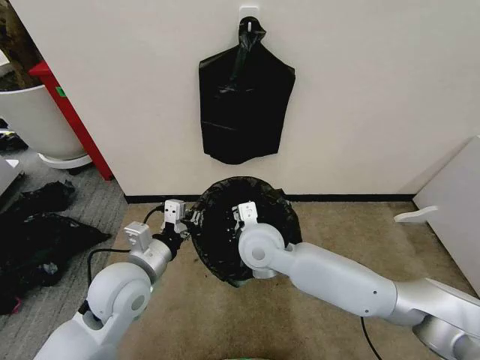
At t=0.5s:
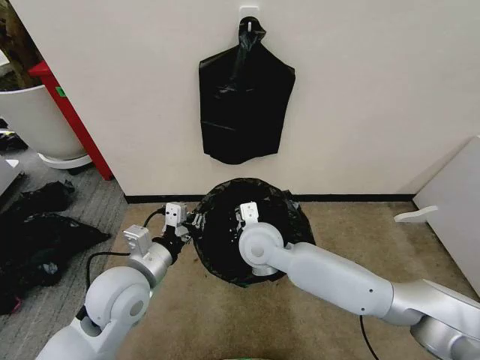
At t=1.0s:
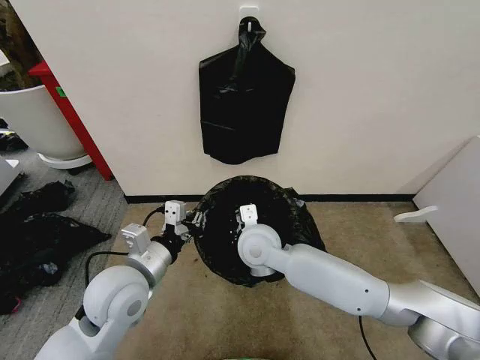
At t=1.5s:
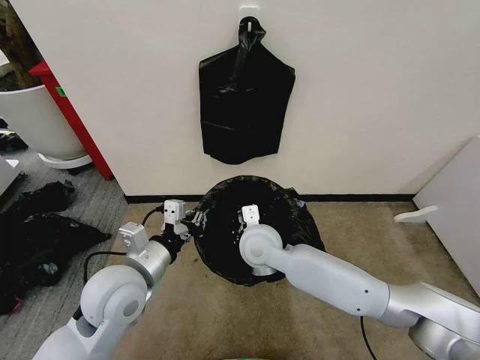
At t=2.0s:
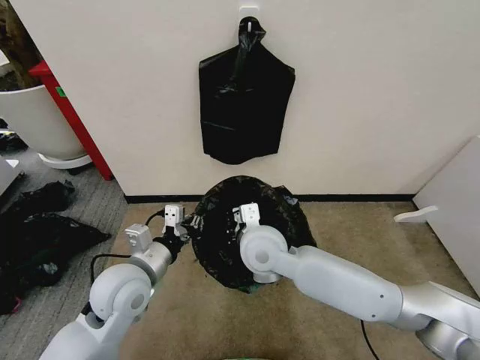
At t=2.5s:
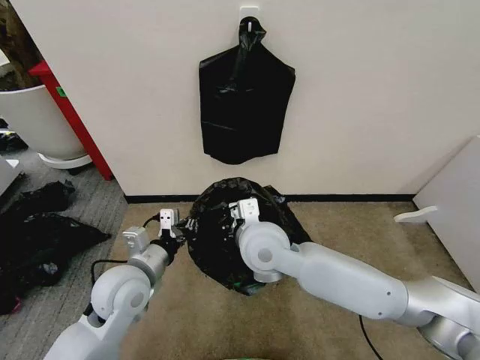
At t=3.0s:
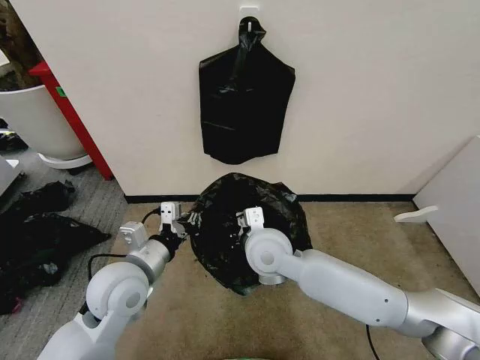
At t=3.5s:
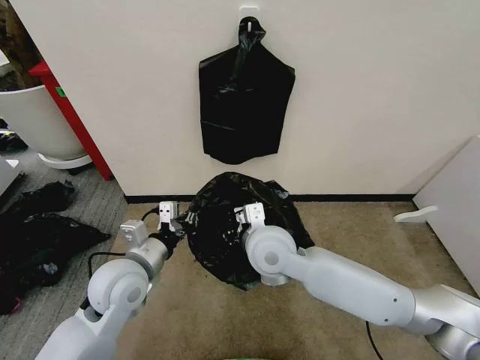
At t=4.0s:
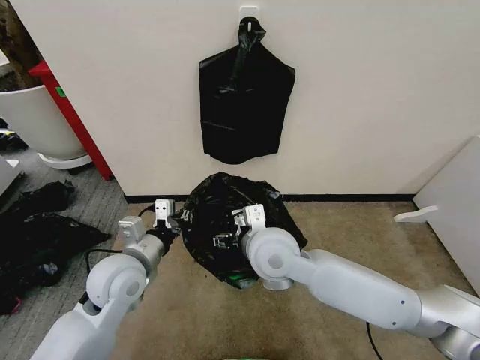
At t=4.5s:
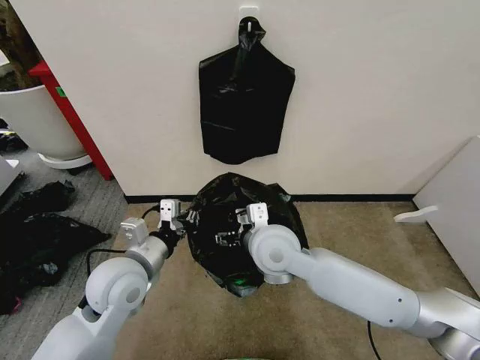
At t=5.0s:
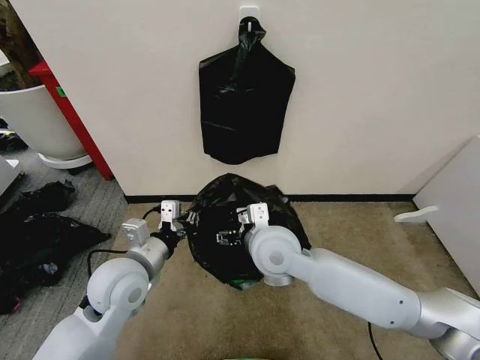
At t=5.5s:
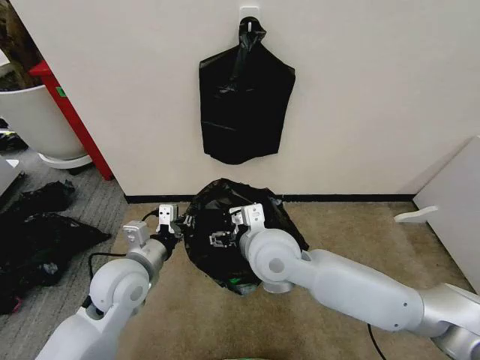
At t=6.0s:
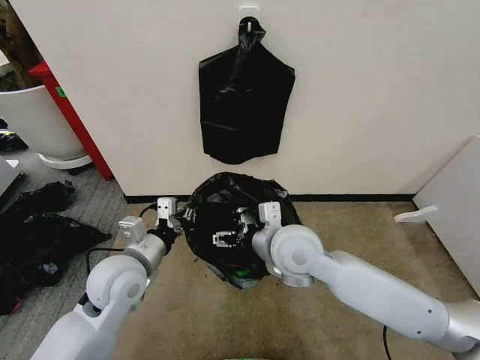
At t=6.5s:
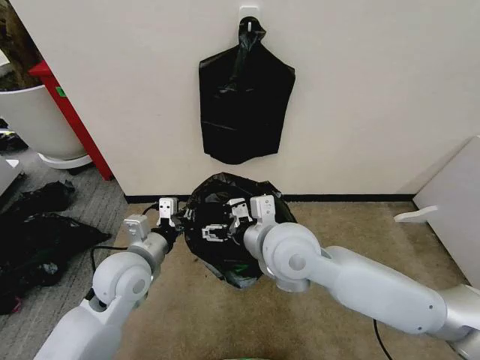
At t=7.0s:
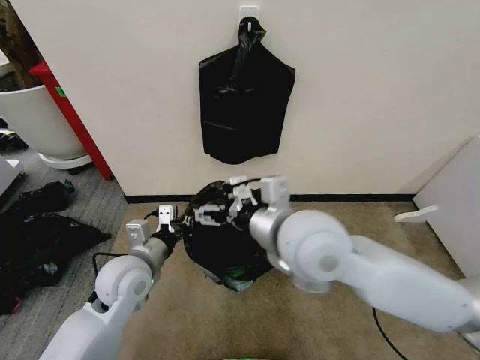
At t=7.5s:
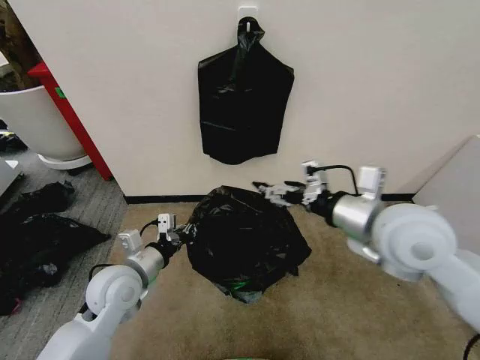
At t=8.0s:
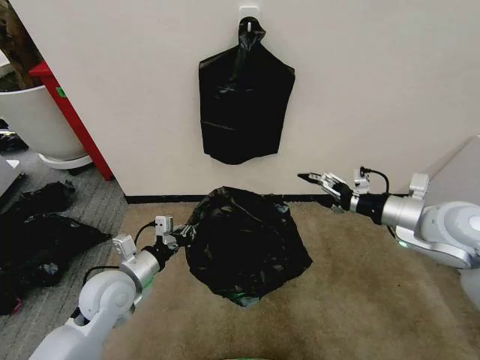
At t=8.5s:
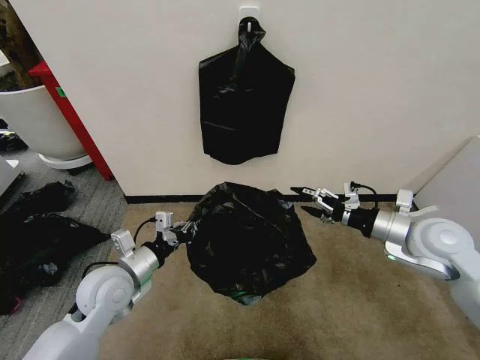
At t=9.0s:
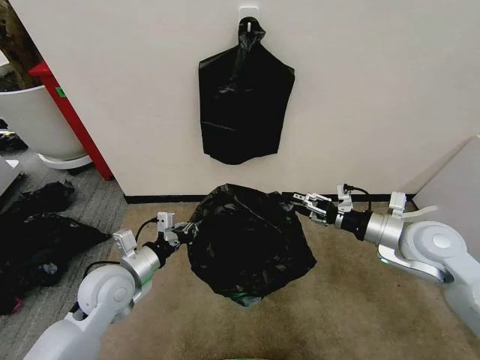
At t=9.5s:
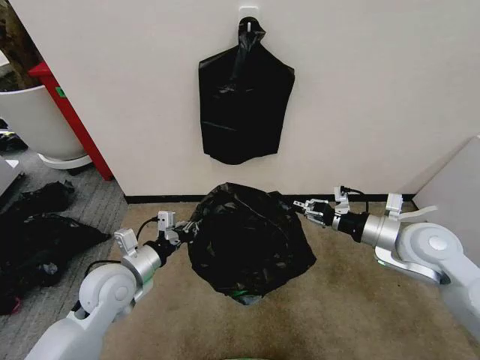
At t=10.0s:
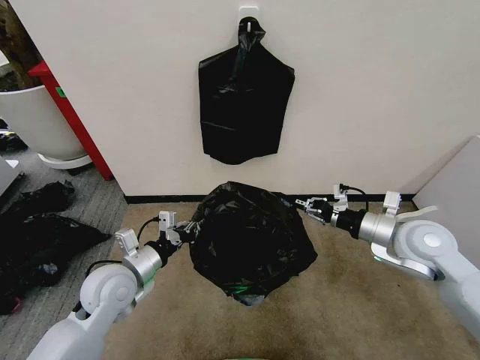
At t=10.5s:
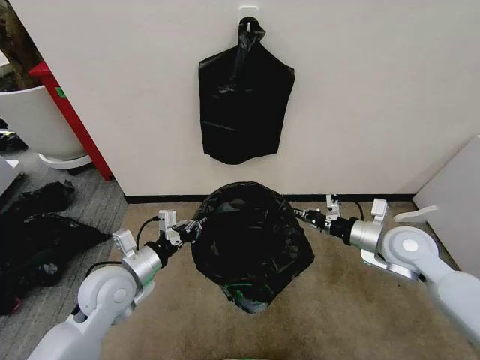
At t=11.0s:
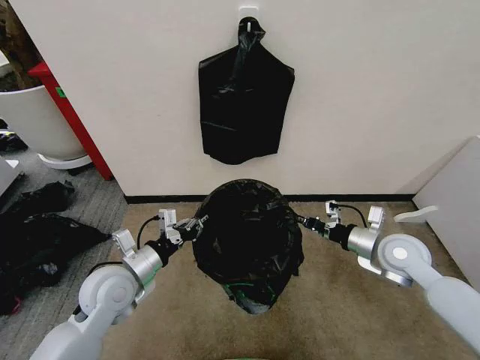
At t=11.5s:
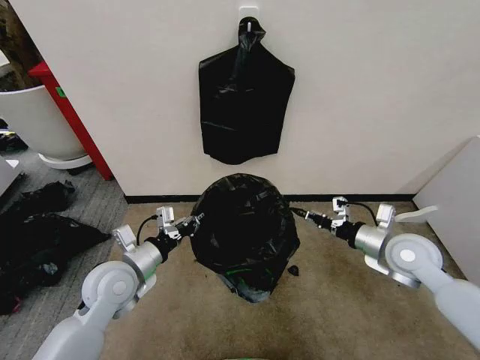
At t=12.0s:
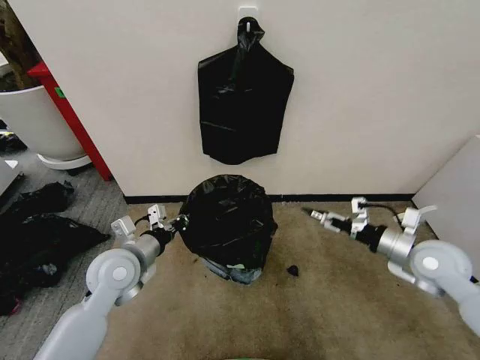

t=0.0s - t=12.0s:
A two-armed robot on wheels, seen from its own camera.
Task of the whole recording: Place the garbage bag over the trash bin.
t=0.0s - t=2.0s: The grippers stay close to where they were, moving slightly.
t=2.0s - t=4.0s: The right gripper opens.
t=4.0s - t=6.0s: There are only small adjustments of the grippers.
t=6.0s - t=8.0s: The right gripper shifts some 25 cm to the right. Meanwhile the left gripper heads downward, covering about 5 cm.
t=8.0s - t=10.0s: The right gripper travels downward by some 5 cm, and closes up.
t=10.0s - t=12.0s: The right gripper moves to the right, roughly 5 cm, and opens.

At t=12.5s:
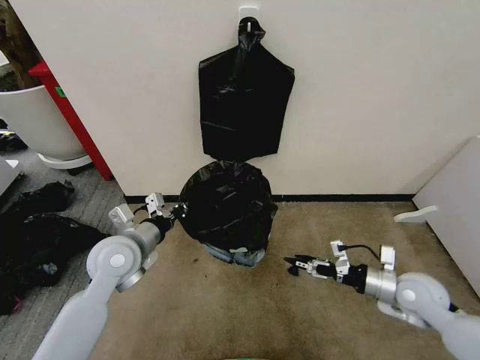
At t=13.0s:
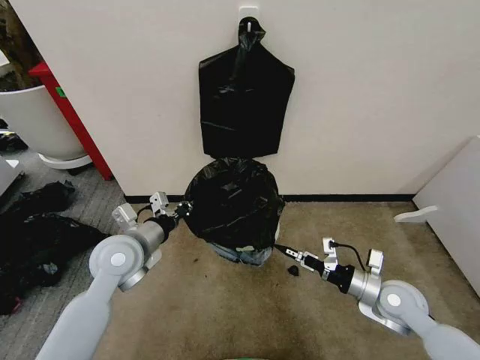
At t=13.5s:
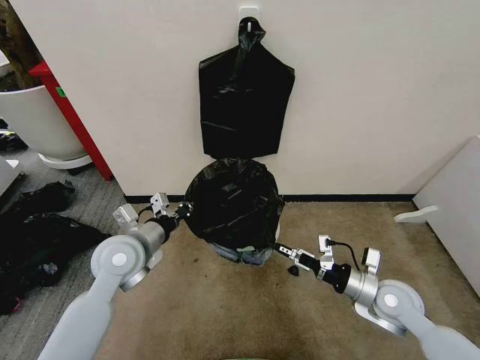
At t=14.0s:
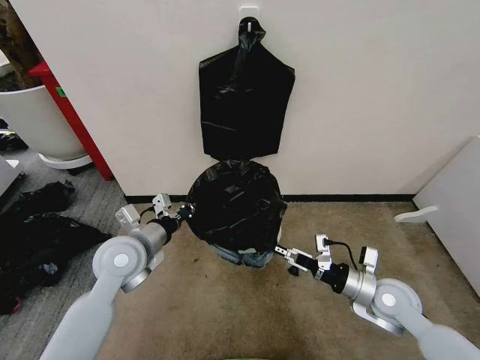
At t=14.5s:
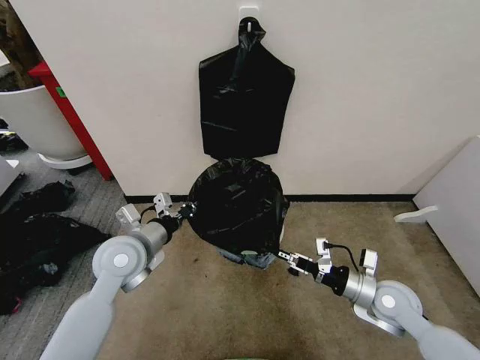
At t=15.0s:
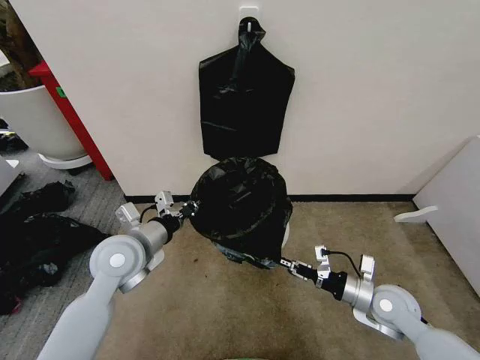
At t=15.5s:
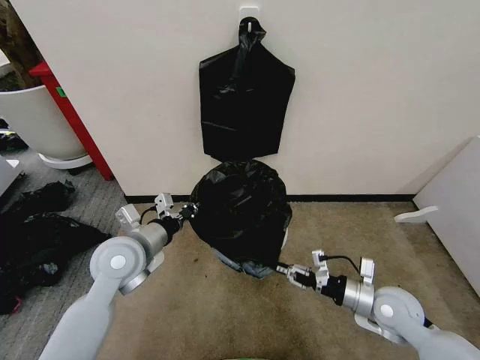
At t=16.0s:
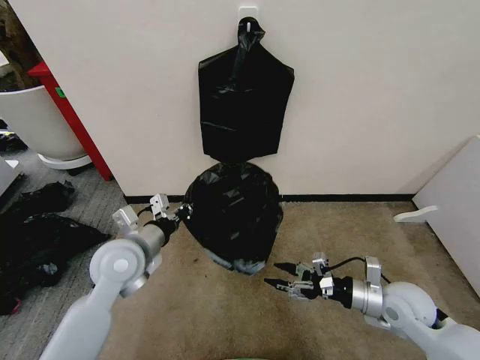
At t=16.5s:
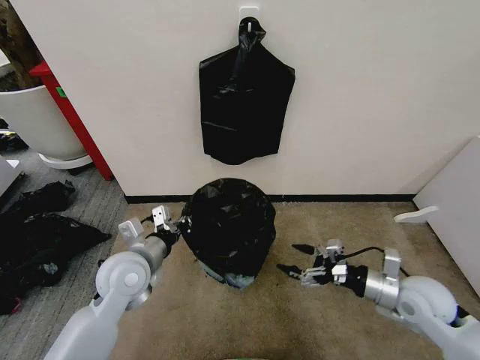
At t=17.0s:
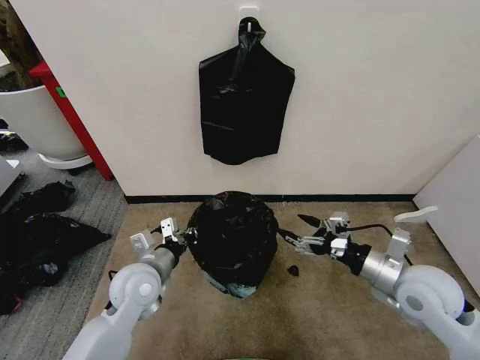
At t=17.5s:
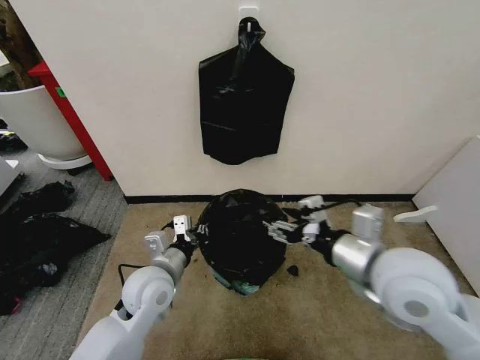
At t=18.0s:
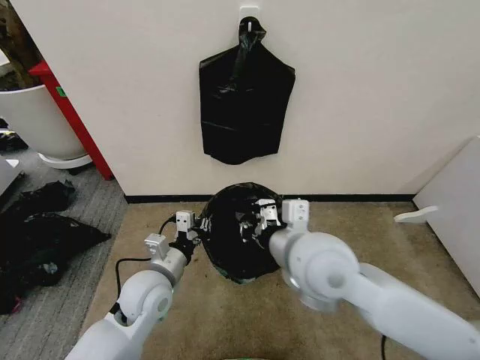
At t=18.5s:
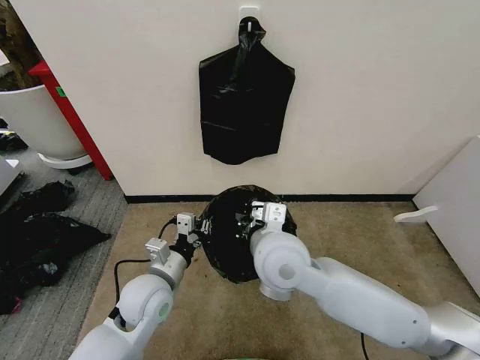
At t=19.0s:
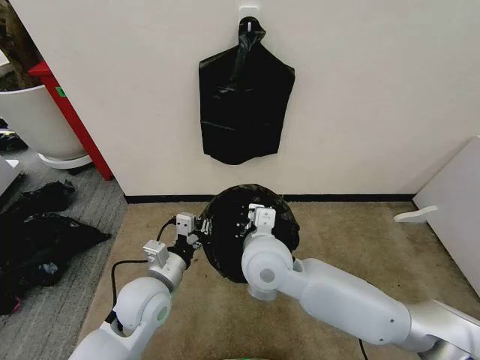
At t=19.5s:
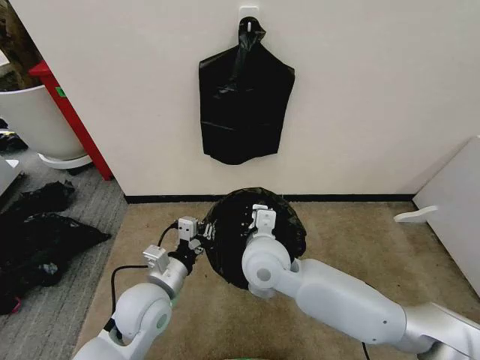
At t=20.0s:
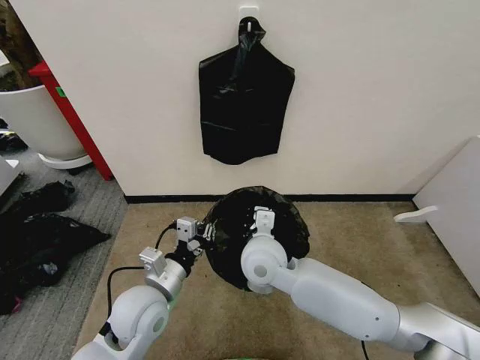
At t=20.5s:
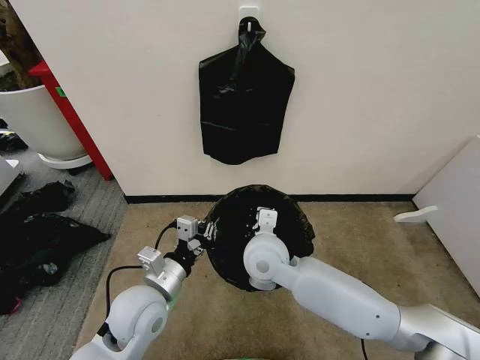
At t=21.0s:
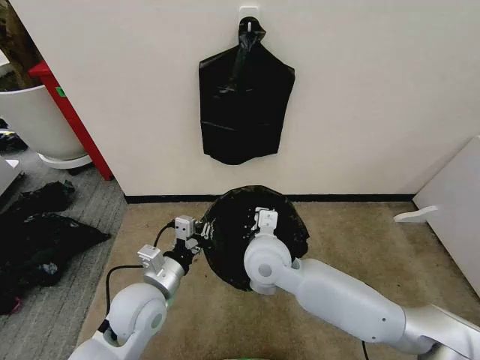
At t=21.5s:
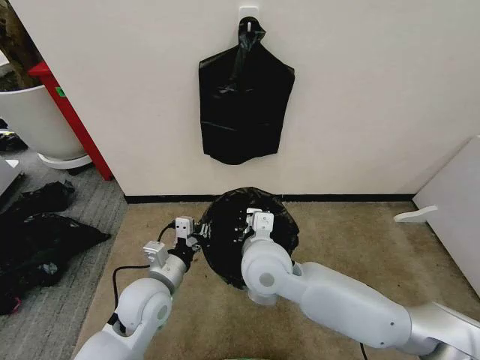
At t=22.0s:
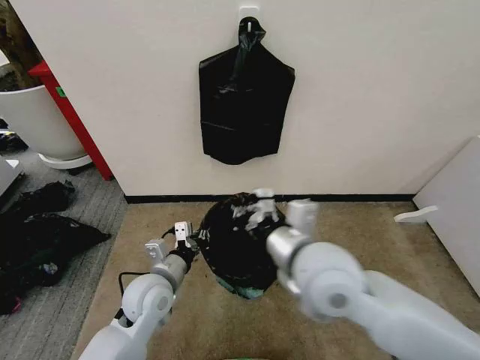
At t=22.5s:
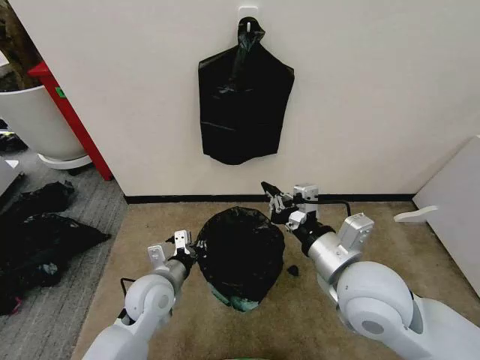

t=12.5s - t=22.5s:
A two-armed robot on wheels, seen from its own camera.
Task of the whole recording: Place the garbage bag over the trash bin.
t=12.5s - t=14.5s: The right gripper moves to the left, about 5 cm, and closes.
t=14.5s - t=16.5s: The right gripper moves roughly 5 cm, and opens its fingers.
t=16.5s - t=18.5s: The left gripper moves approximately 5 cm, while the right gripper shifts roughly 30 cm to the left, and closes its fingers.
t=18.5s - t=20.5s: The right gripper heads downward, covering roughly 5 cm.
t=20.5s - t=22.5s: The right gripper shifts approximately 20 cm to the right, backward and upward. Meanwhile the left gripper moves roughly 5 cm.

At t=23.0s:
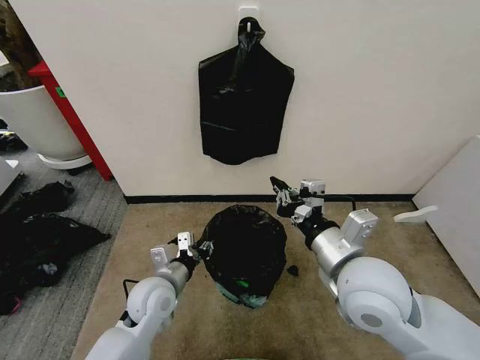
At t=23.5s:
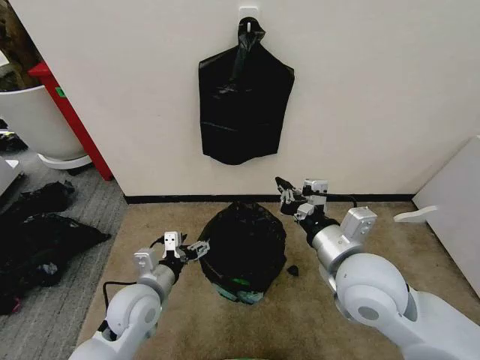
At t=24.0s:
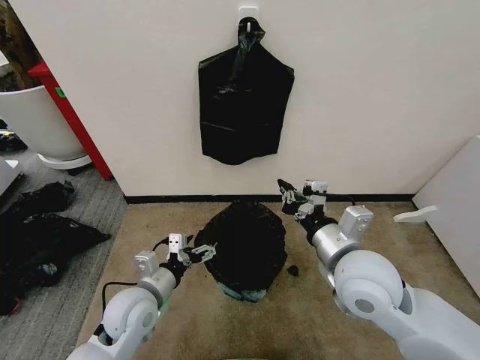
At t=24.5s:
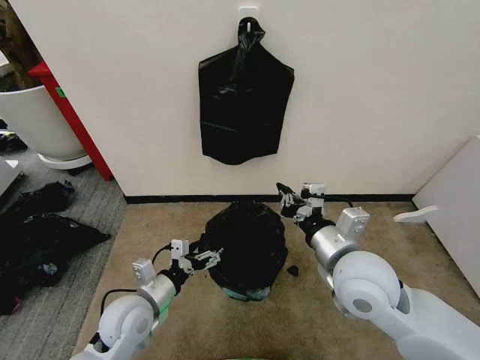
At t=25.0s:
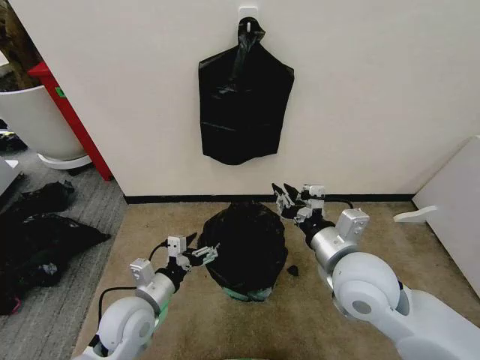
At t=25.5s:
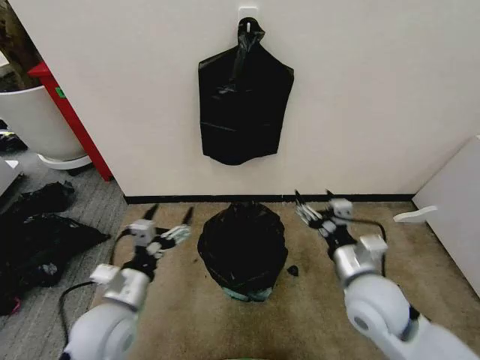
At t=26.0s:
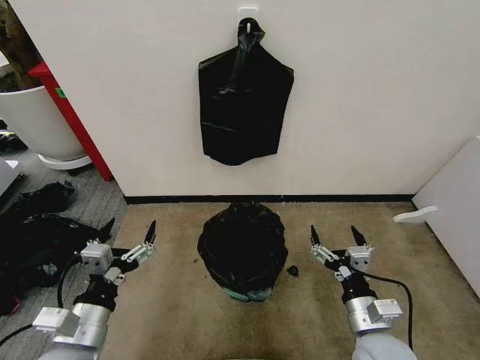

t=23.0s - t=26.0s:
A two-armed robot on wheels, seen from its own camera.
Task of the whole recording: Place the garbage bag over the trash bin.
t=23.0s - t=24.5s: The left gripper shifts by roughly 5 cm, and opens its fingers.
t=24.5s - t=26.0s: The right gripper heads downward and backward, covering some 15 cm, and opens up. Meanwhile the left gripper is displaced backward and upward by about 10 cm.
